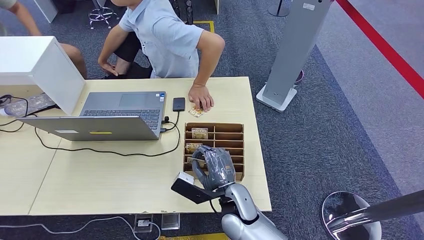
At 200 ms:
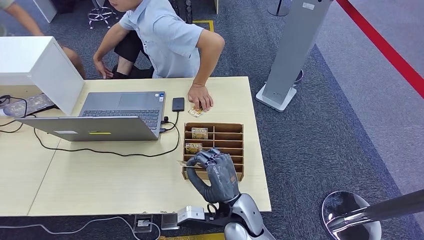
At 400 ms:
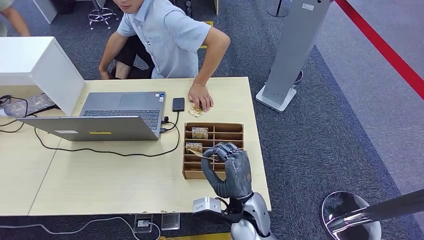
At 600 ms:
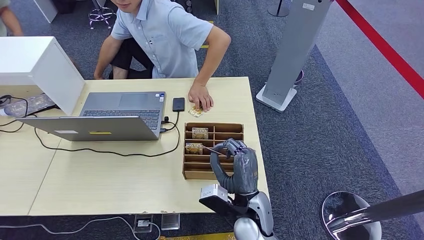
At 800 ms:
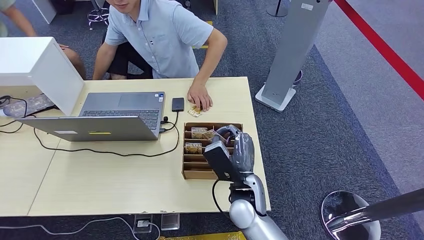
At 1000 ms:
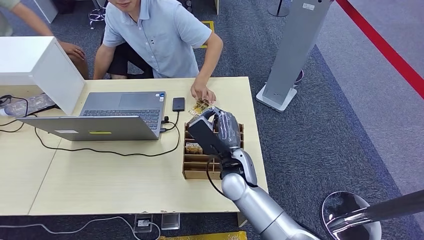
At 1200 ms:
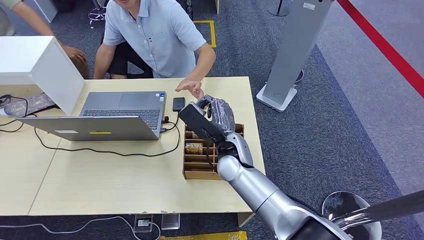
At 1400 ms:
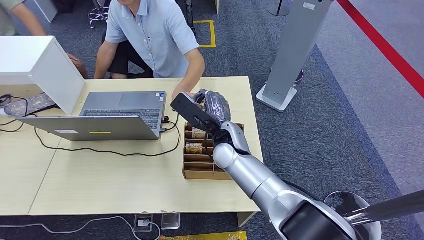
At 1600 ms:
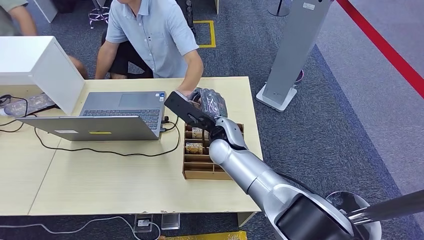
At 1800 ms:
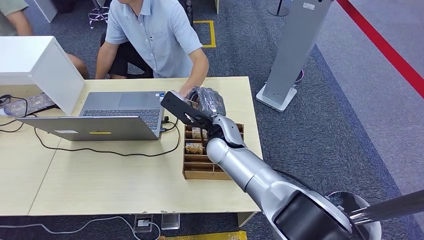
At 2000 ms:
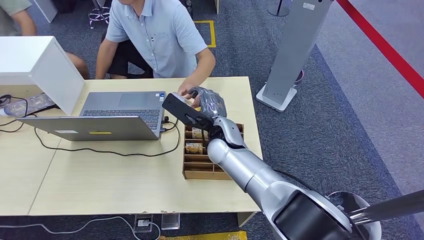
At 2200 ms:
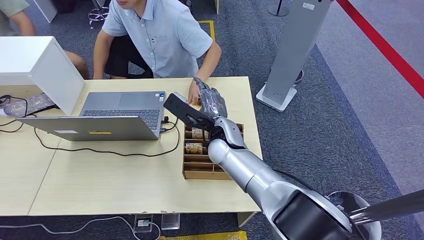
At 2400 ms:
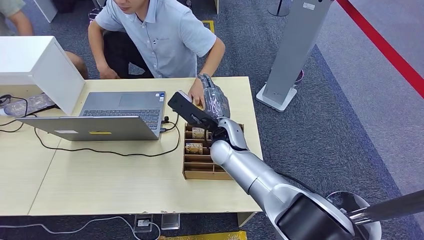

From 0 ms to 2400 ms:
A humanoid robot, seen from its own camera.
Step, from 1400 ms to 2400 ms: Hand the key card to the target.
From 0 ms to 1200 ms: The right hand shifts approximately 15 cm forward and upward.
From 1200 ms to 2400 ms: The hands stay close to where they were, moving slightly.
